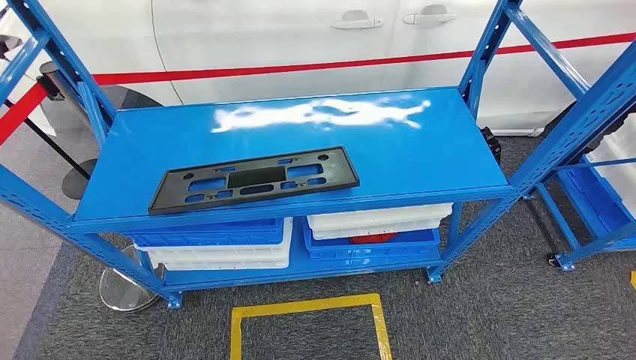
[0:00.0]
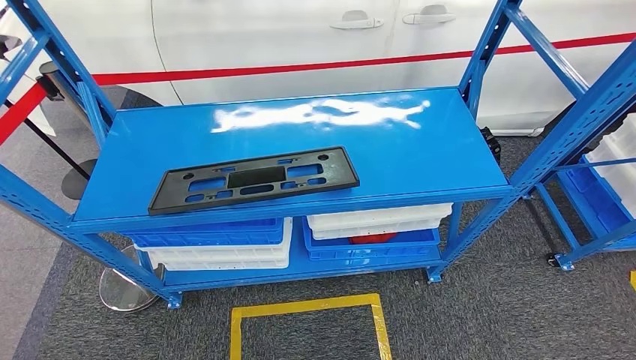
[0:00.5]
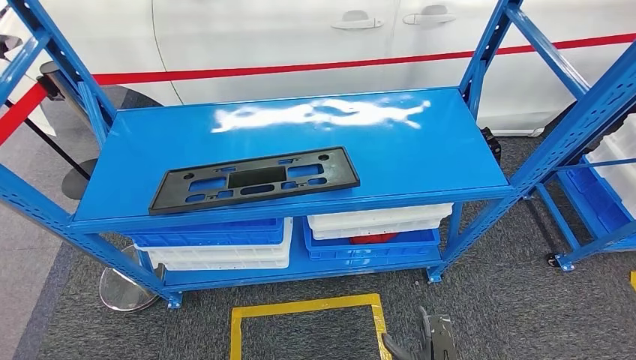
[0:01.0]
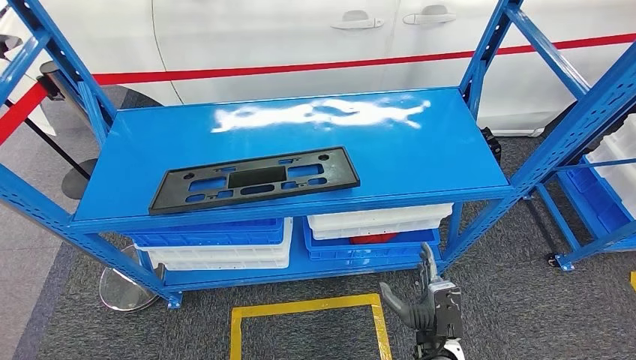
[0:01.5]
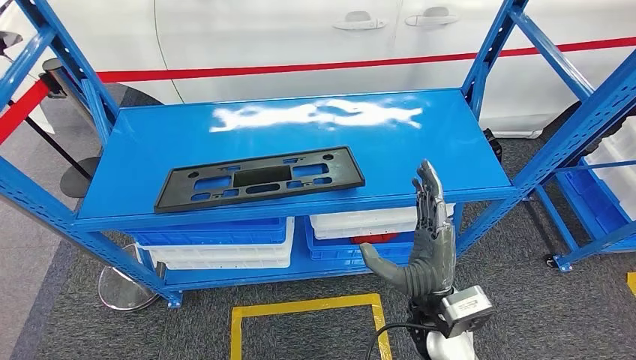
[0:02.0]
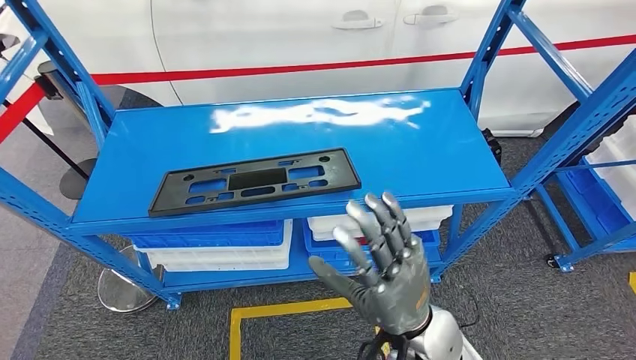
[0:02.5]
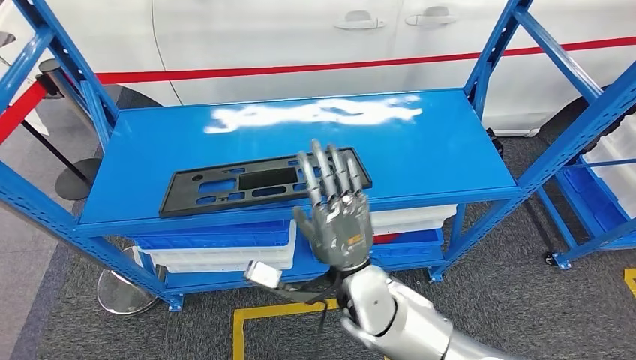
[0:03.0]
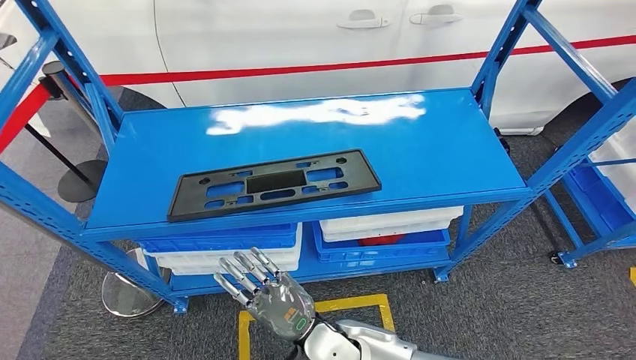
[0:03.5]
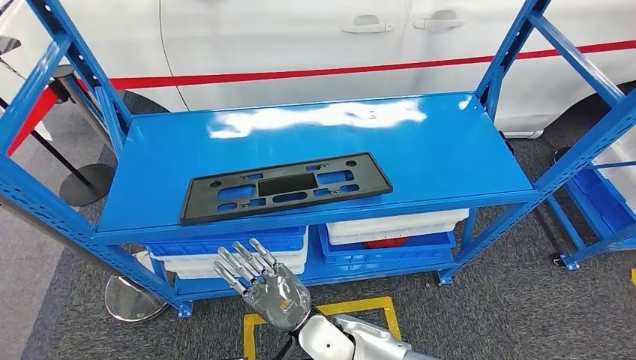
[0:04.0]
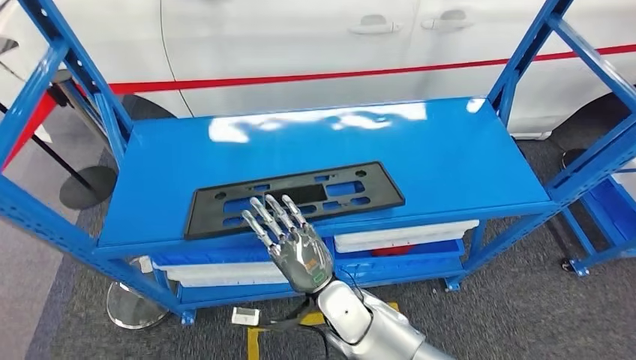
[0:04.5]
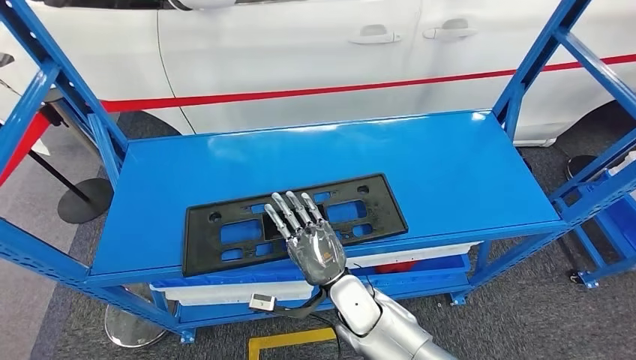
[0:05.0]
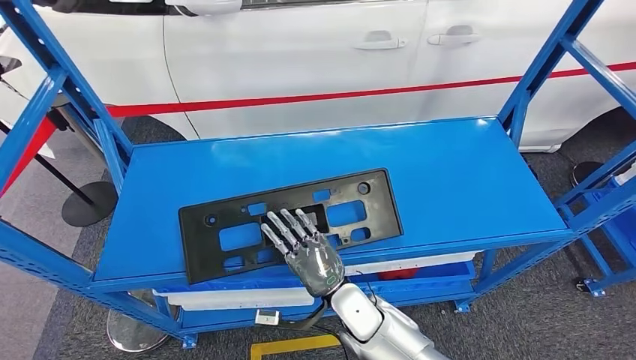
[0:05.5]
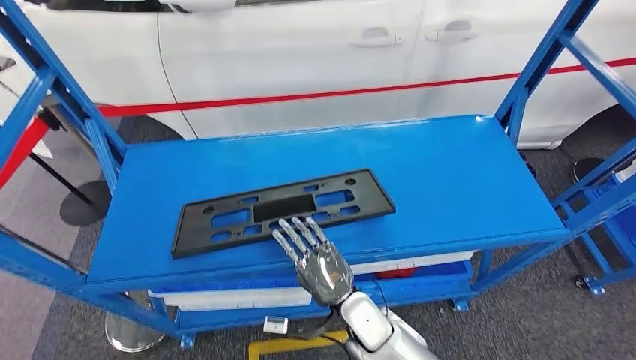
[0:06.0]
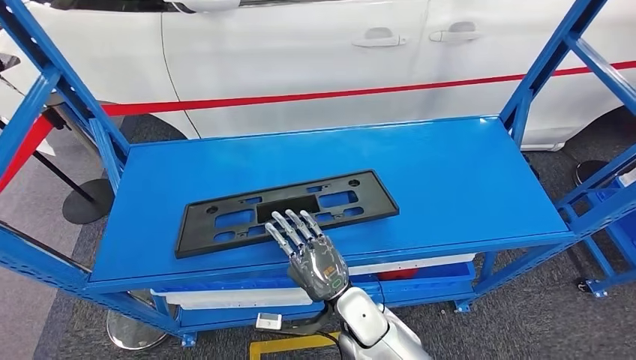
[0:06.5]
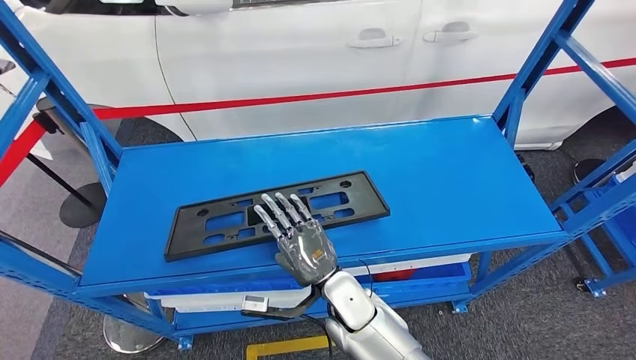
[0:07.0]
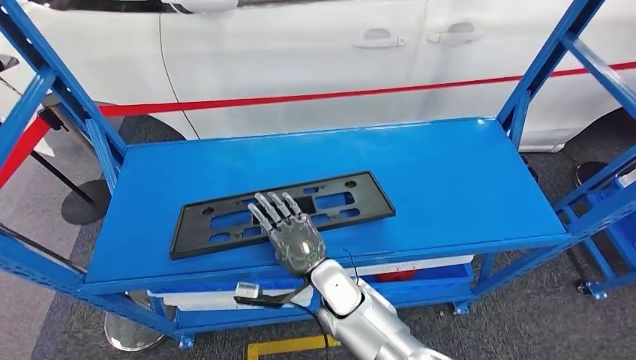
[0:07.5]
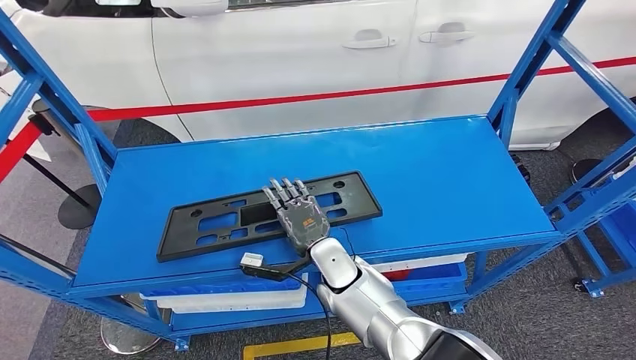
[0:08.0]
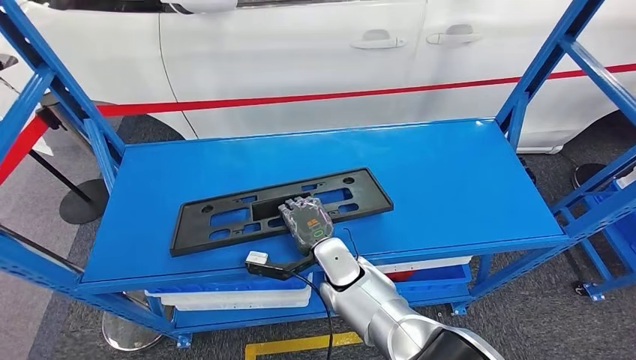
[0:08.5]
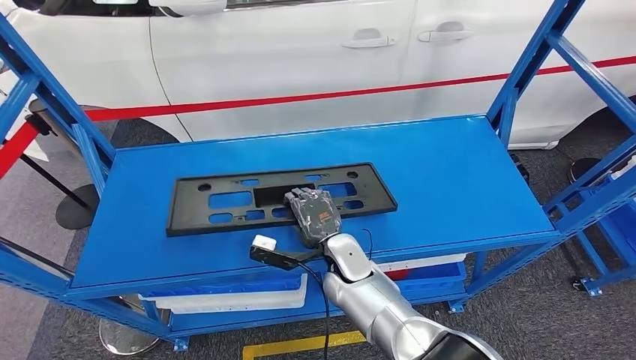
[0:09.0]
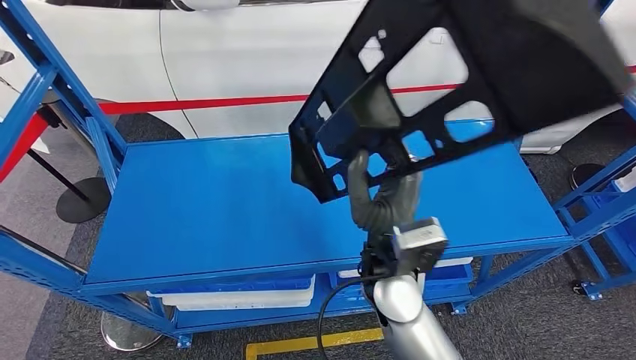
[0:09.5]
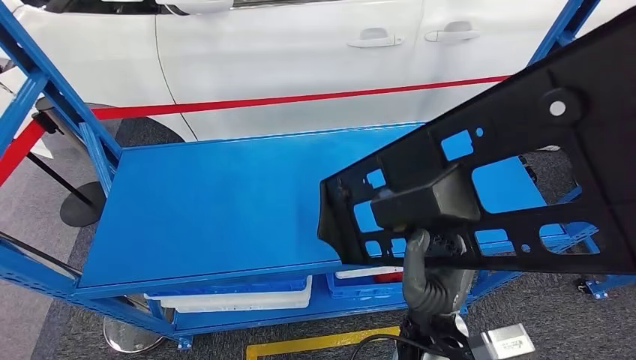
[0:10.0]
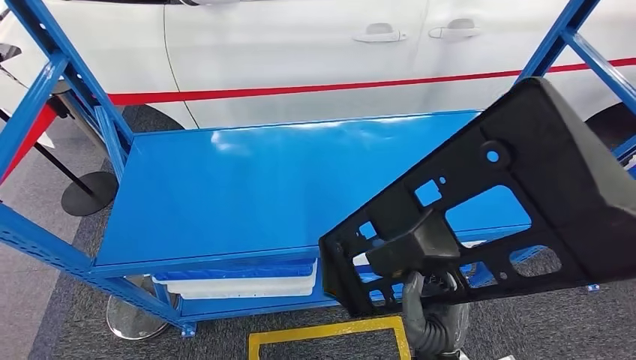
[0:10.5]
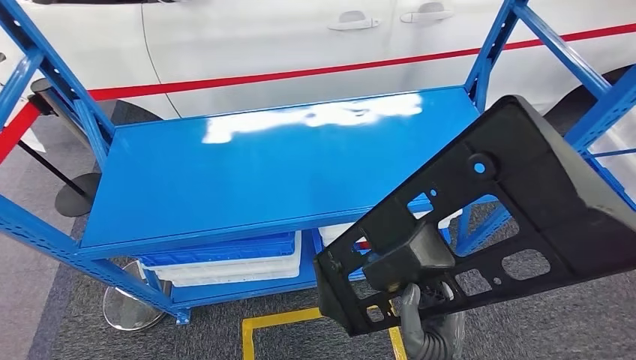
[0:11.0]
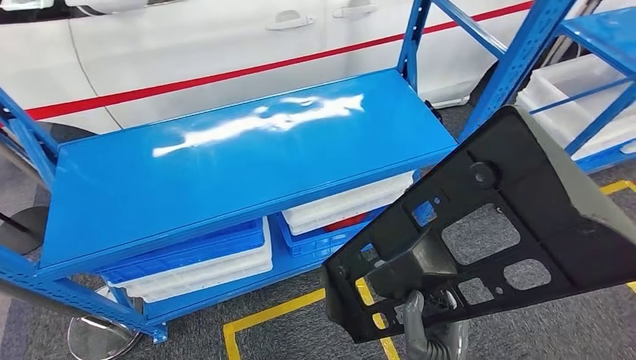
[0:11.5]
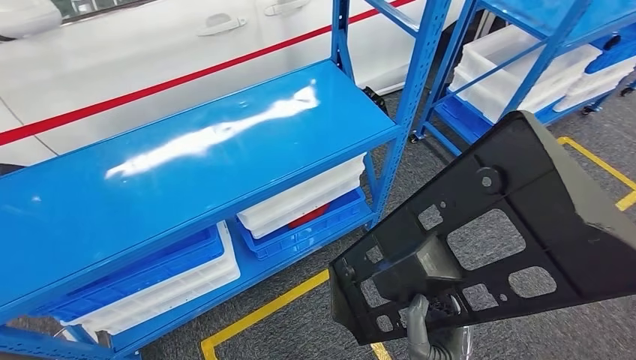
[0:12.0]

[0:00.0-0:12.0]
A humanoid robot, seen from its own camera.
Step, 0:00.0 to 0:10.0: Pick up the large material from the shelf.

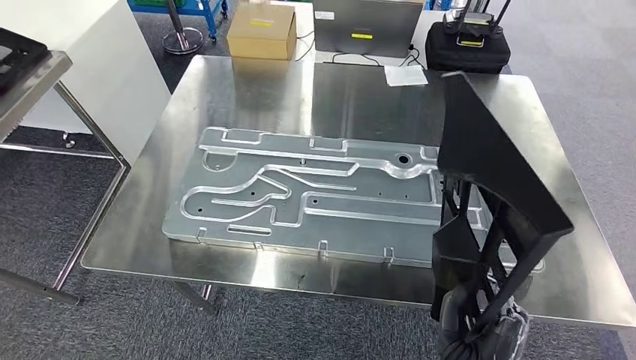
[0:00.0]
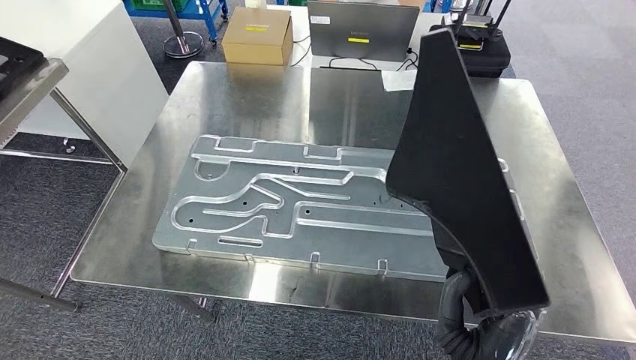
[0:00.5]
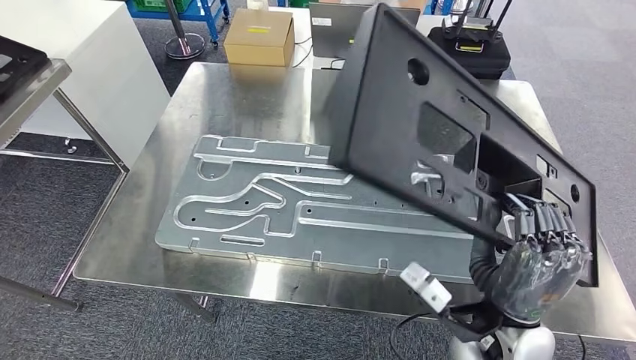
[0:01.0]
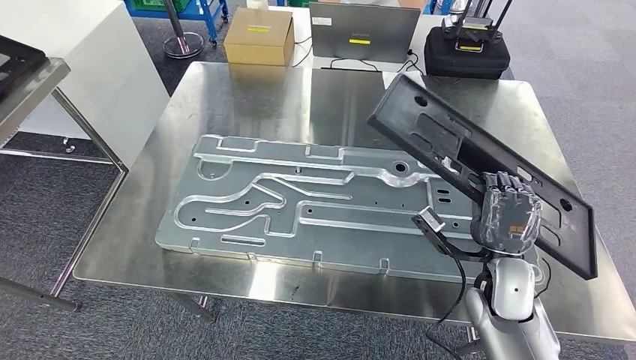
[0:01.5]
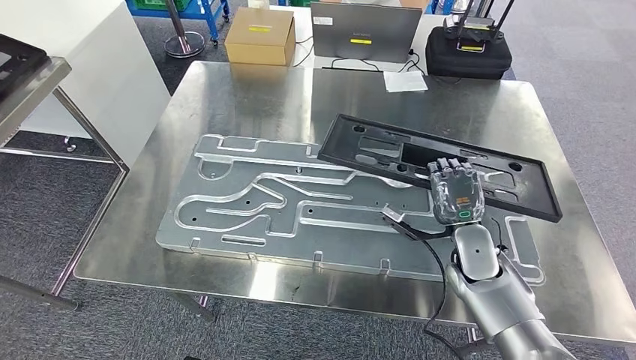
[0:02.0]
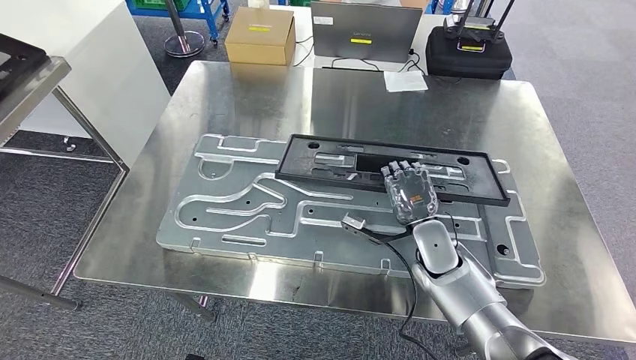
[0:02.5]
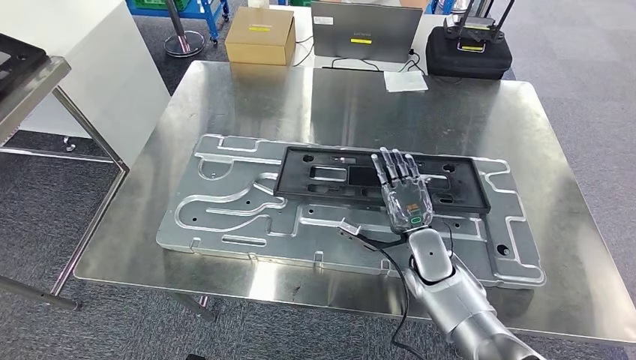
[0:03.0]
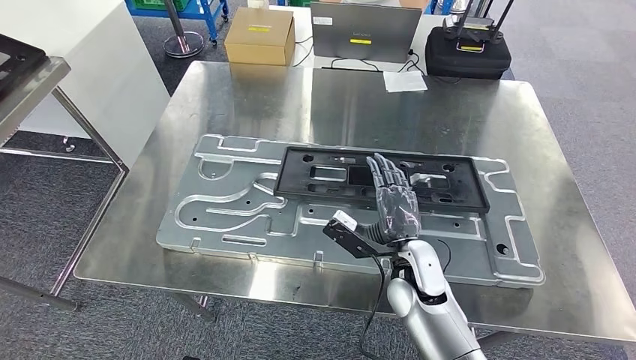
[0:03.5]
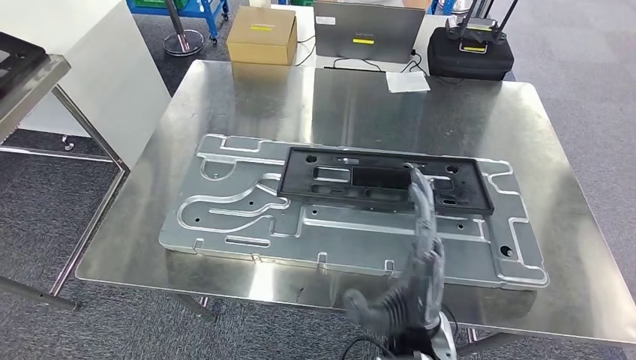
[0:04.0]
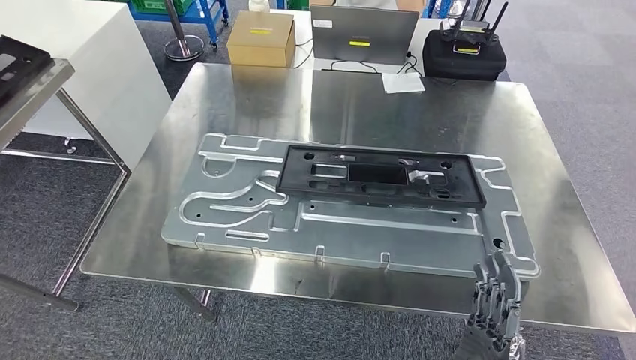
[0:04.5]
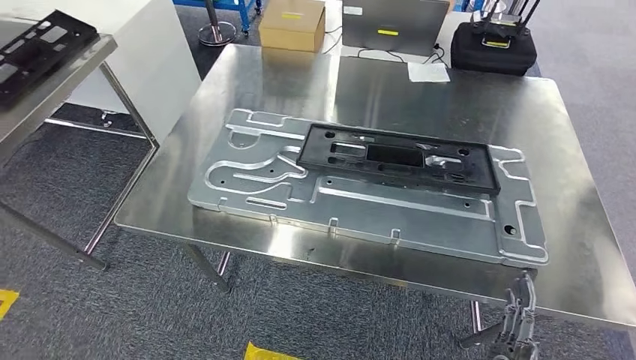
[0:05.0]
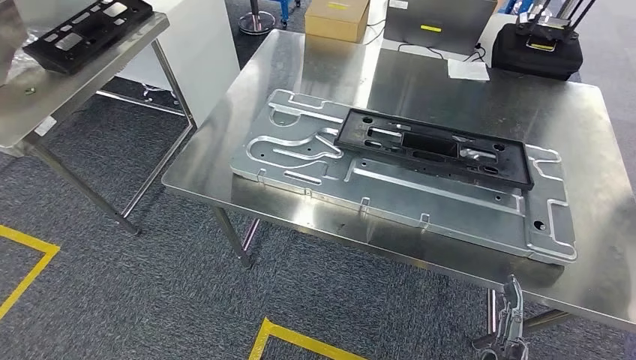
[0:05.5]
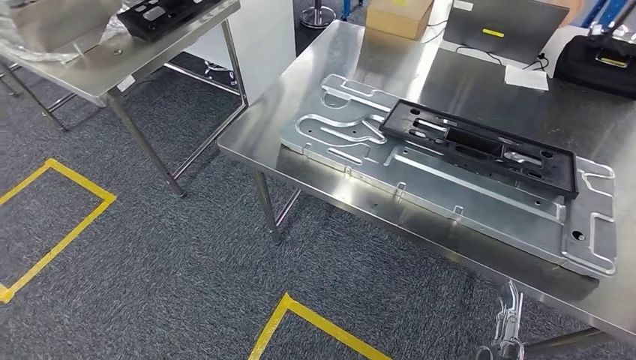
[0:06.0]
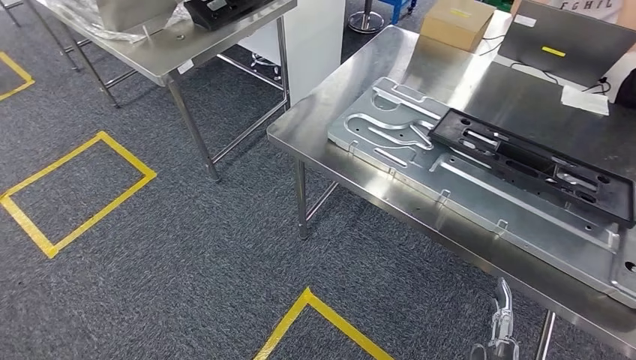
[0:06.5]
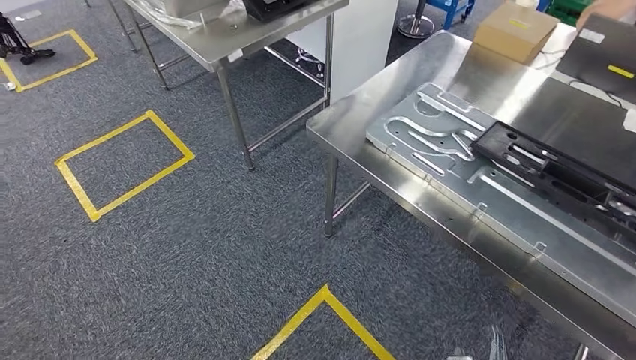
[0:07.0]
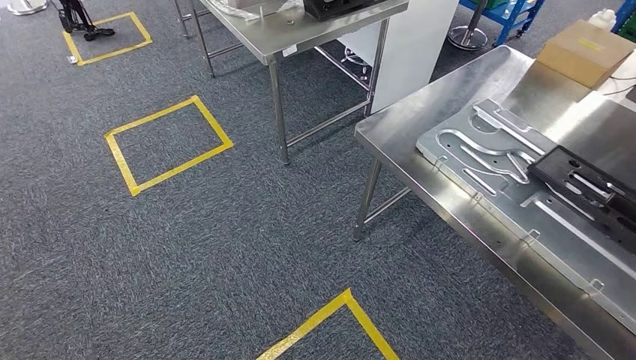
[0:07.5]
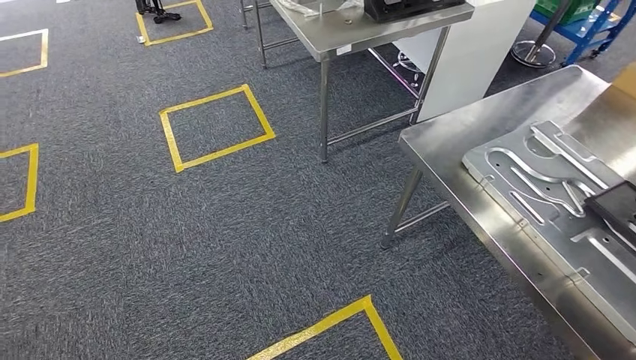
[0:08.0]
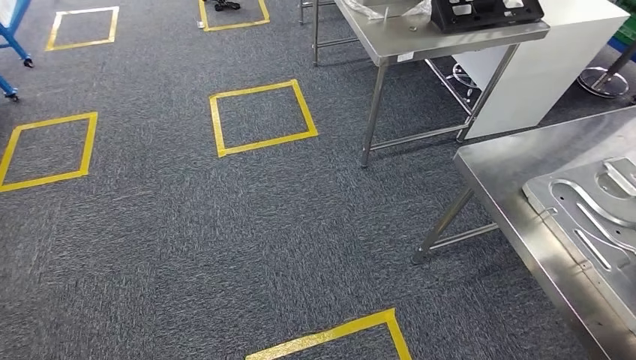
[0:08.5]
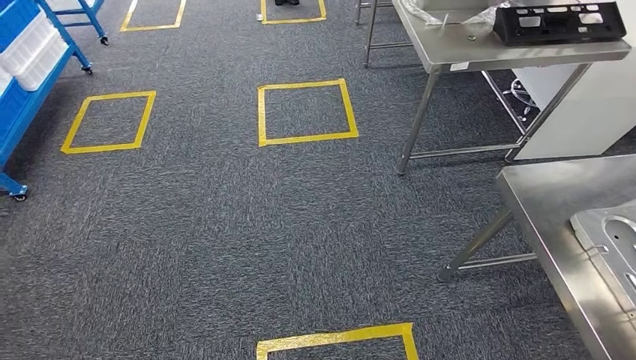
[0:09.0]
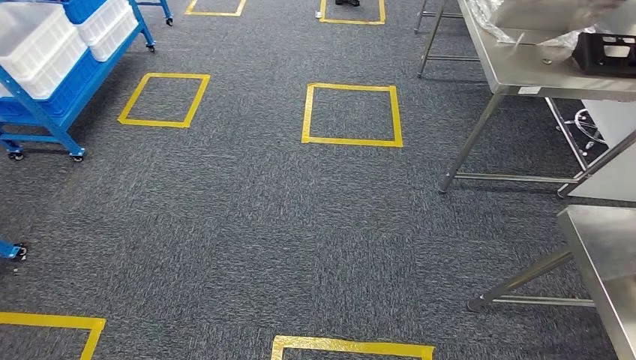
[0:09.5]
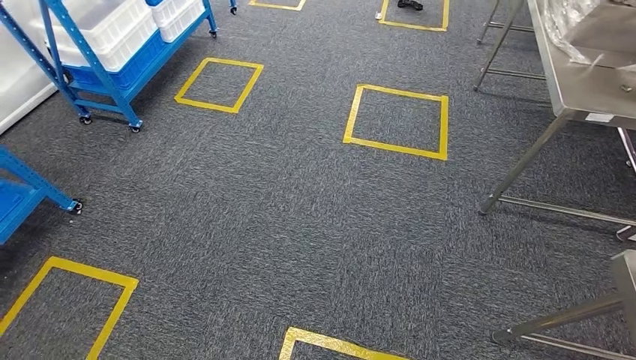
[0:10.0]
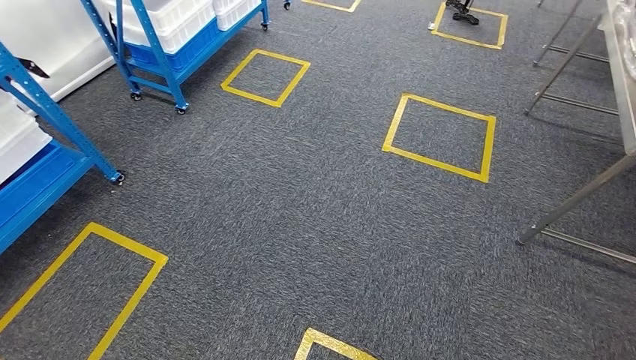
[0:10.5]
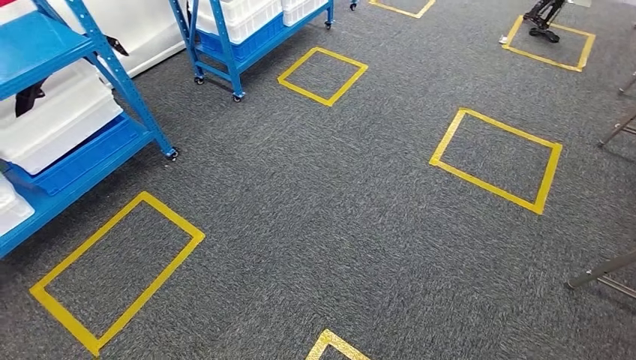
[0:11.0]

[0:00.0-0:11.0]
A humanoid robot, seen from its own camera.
Step, 0:00.5 to 0:05.5: Insert the large material into the corresponding slot on the workbench.
0:02.0 to 0:03.5: The right hand is displaced to the left by roughly 15 cm.
